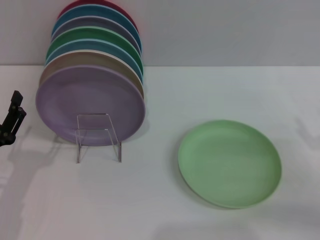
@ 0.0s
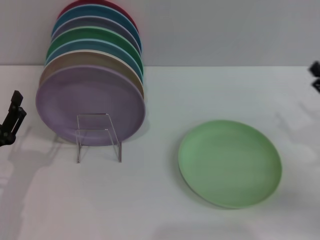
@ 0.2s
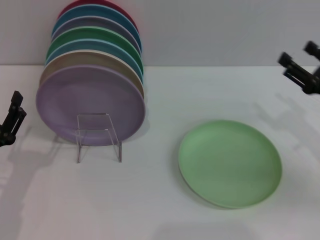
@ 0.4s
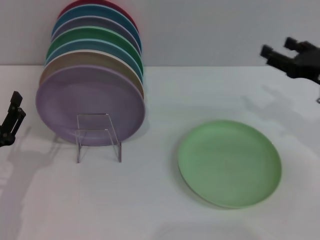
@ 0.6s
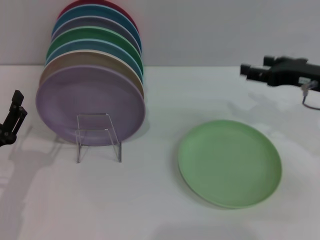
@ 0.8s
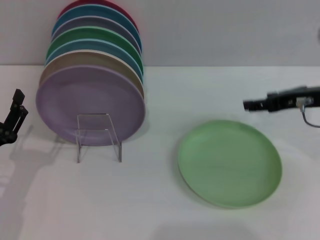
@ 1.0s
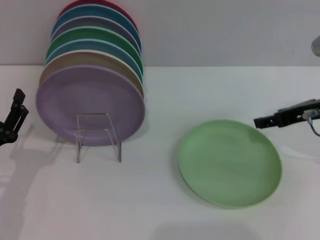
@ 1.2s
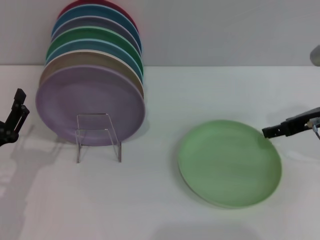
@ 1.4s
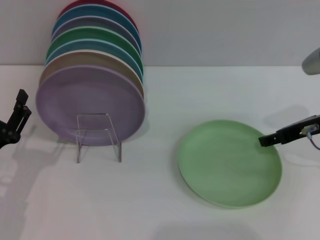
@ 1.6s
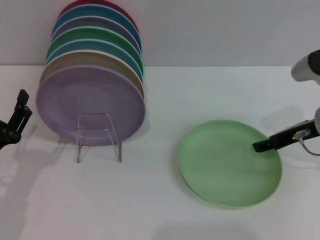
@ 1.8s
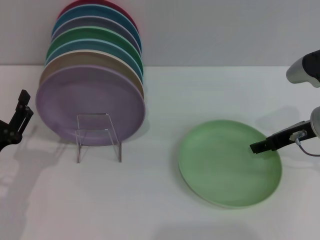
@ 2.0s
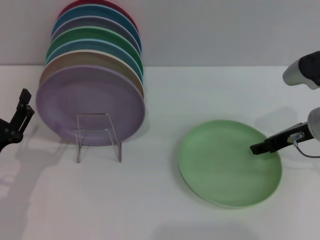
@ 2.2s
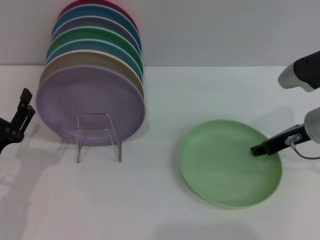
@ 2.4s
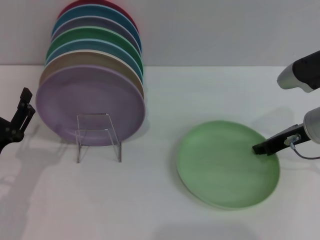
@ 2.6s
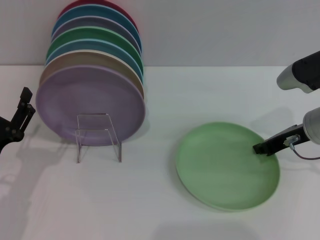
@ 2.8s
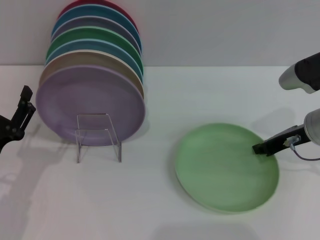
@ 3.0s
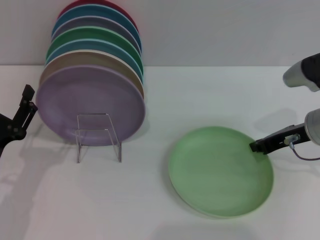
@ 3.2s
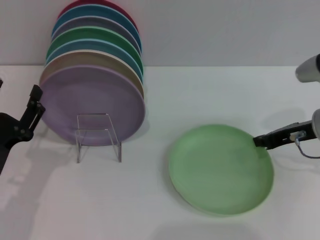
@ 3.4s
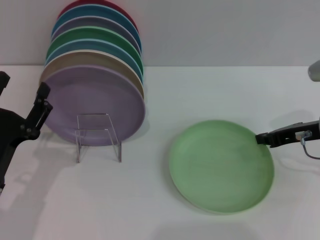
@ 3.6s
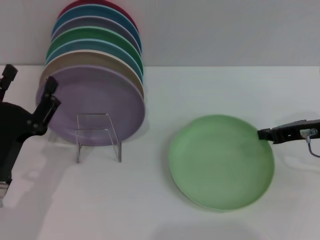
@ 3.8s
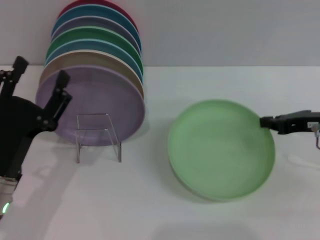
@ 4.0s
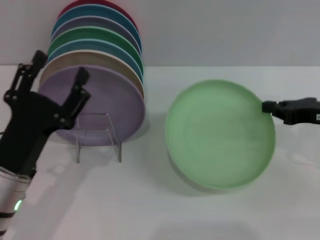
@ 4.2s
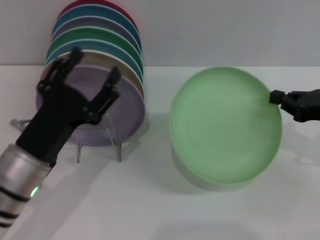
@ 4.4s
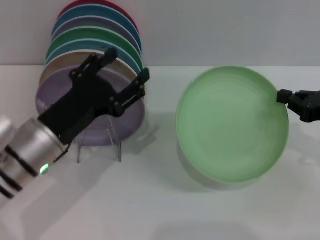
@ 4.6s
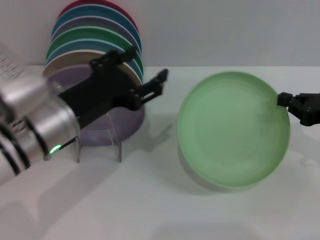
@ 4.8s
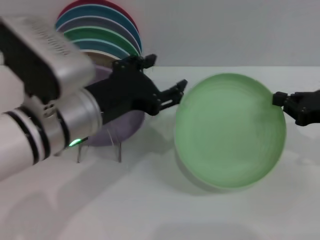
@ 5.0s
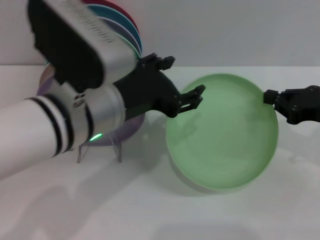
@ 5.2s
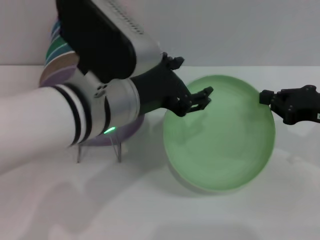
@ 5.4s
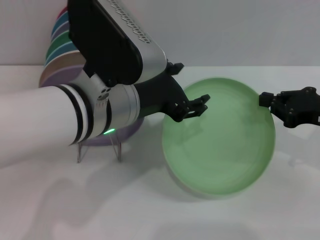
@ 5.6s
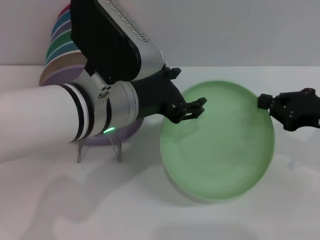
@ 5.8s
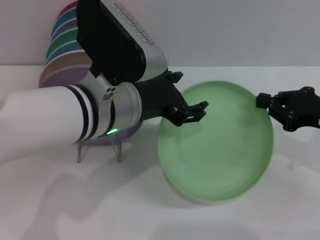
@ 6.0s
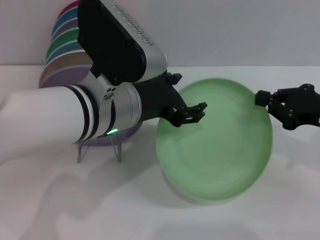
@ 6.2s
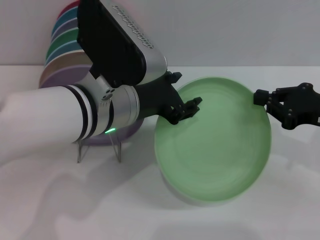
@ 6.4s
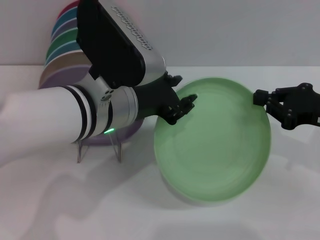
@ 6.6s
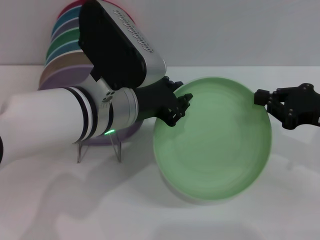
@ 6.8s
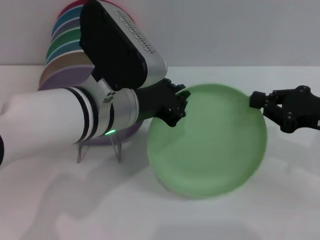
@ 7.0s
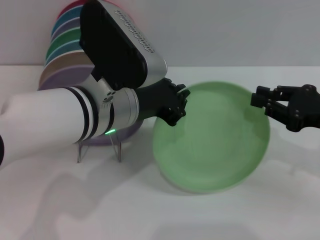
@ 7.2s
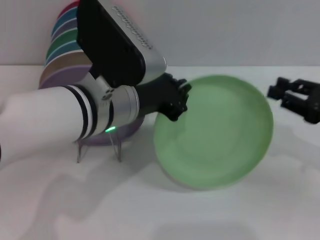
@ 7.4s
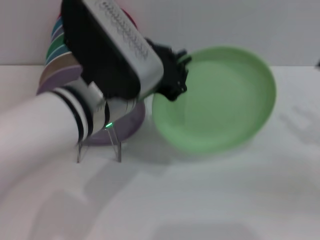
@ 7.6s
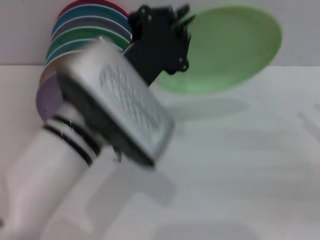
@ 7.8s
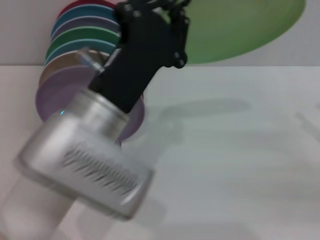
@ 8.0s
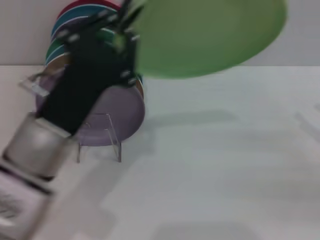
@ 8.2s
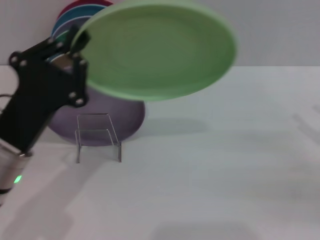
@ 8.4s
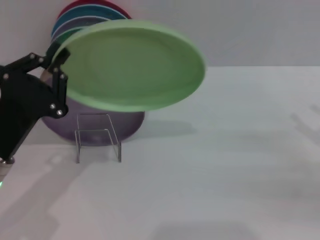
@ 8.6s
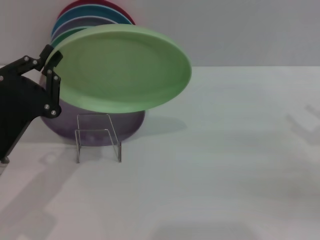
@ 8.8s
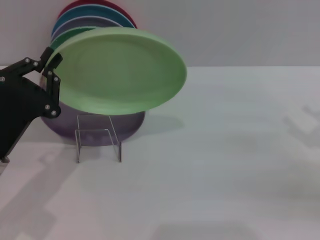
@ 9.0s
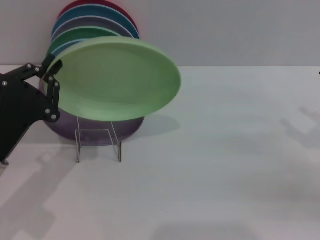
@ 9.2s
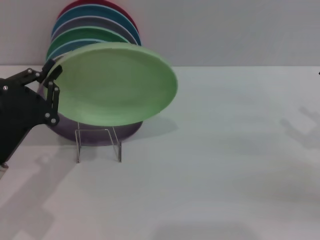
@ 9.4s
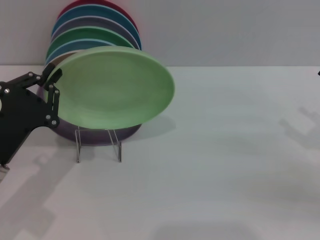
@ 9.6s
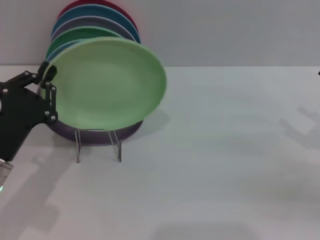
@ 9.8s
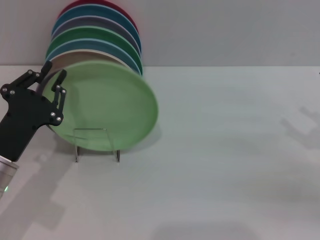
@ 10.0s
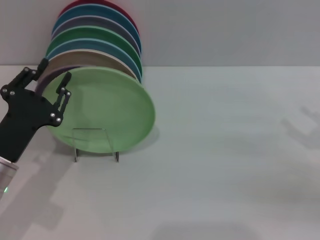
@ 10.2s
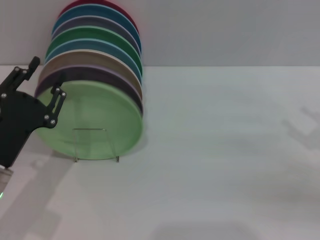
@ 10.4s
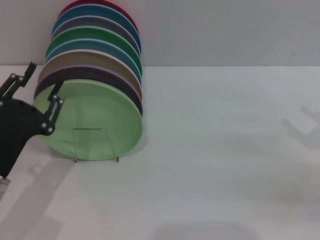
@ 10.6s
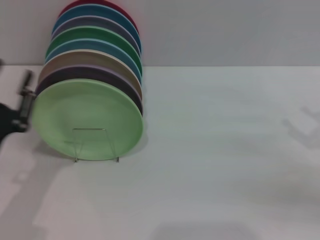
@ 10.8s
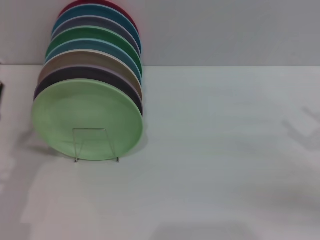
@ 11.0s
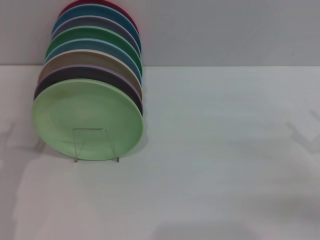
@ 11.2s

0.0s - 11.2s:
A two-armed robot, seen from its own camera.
Task of the whole recording: Grip the plate with one hand, pass it to the other, then set it on the shelf.
Step, 0.0s - 4.2s: Pick up the plate with the right gripper.
Step, 4.4s - 7.4s: Pass the plate from the right gripper to the left gripper.
Step, 7.6s - 10.6s: Place the plate on the shelf with the left gripper.
0.0s - 1.6s: The right gripper heads forward, to the left and upward, covering about 15 cm.
1.6s - 3.2s: The right gripper closes up.
3.2s - 4.8s: The left gripper heads upward, to the right and forward, covering approximately 15 cm. Meanwhile the right gripper goes about 10 cm to the right and backward.
4.8s - 6.4s: The left gripper heads to the right, covering about 10 cm.
6.4s - 8.0s: The left gripper changes place by some 5 cm, and closes its fingers. Meanwhile the right gripper is displaced to the right by some 10 cm, and opens.
8.0s - 9.6s: The left gripper goes roughly 20 cm to the left and downward.
9.6s - 11.2s: The left gripper opens its fingers.
